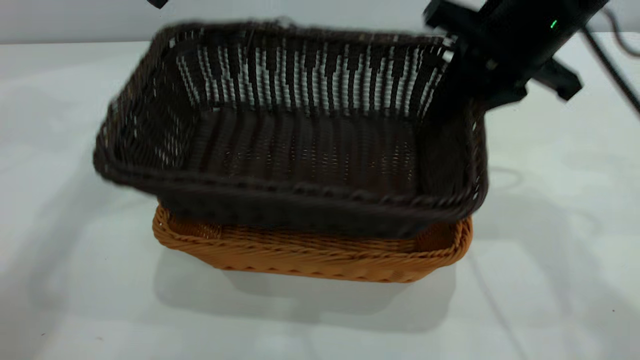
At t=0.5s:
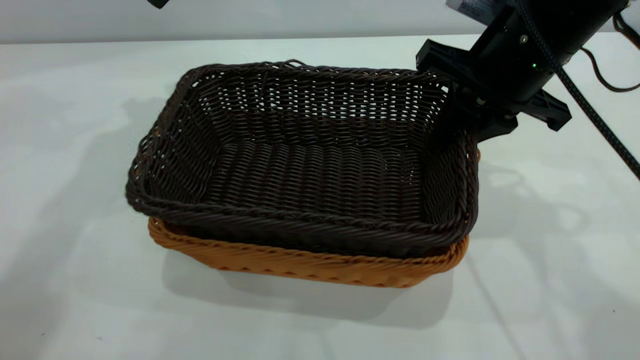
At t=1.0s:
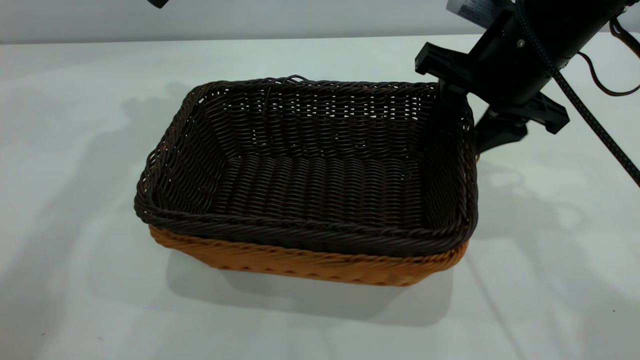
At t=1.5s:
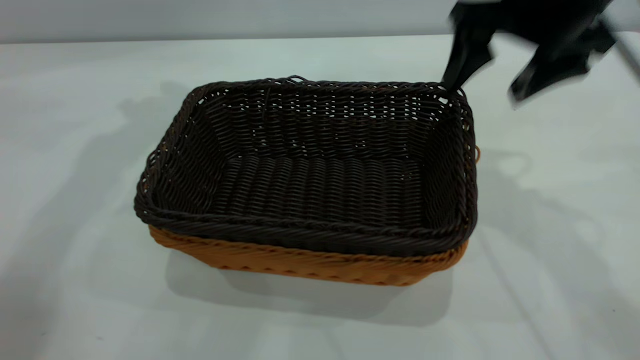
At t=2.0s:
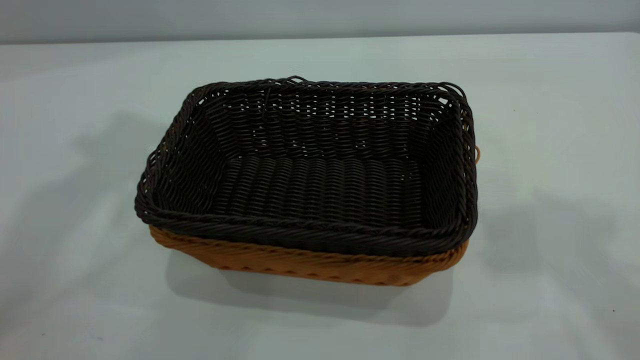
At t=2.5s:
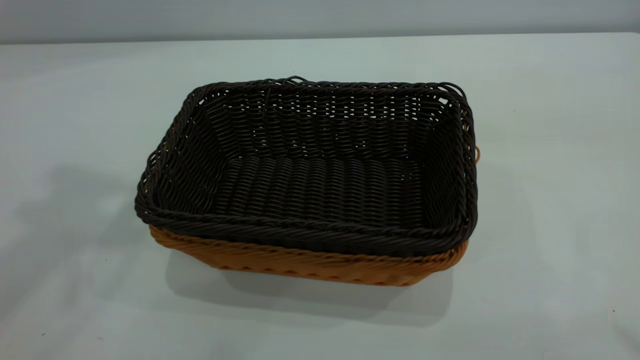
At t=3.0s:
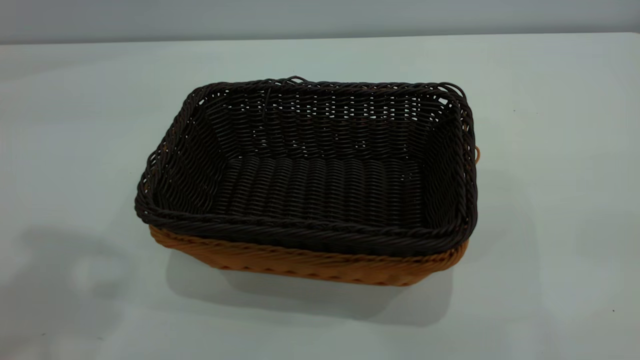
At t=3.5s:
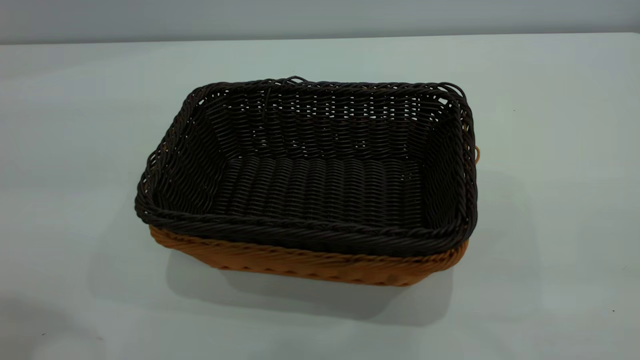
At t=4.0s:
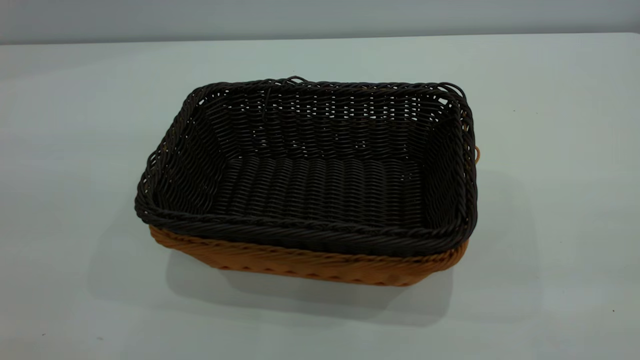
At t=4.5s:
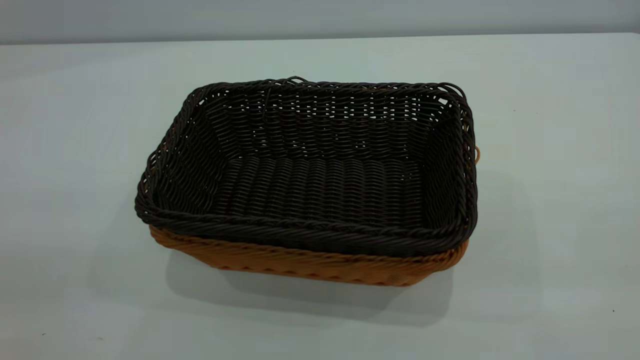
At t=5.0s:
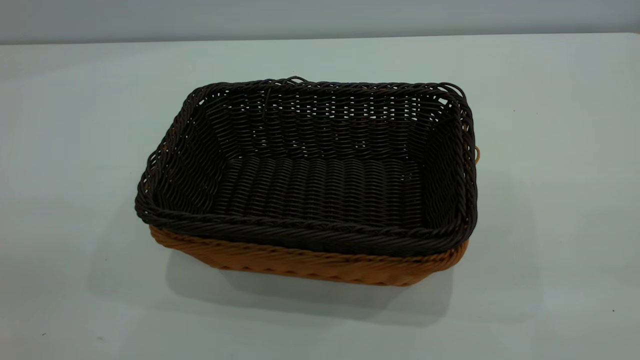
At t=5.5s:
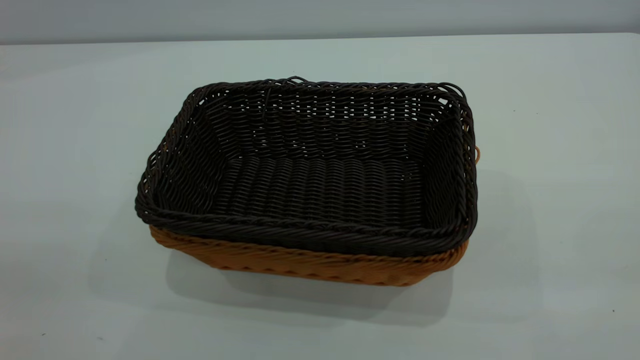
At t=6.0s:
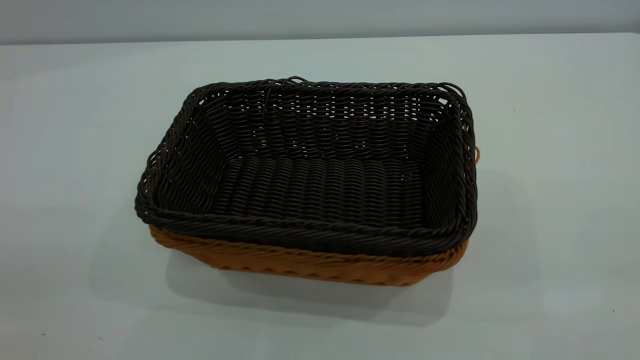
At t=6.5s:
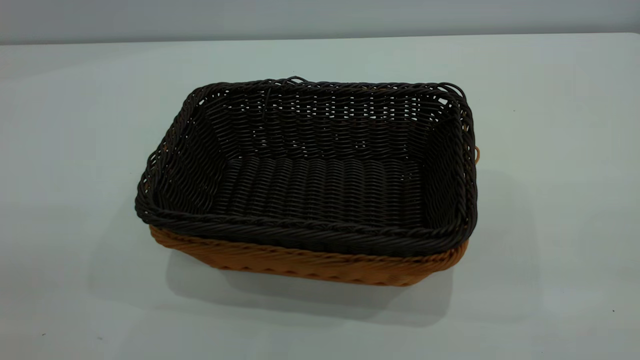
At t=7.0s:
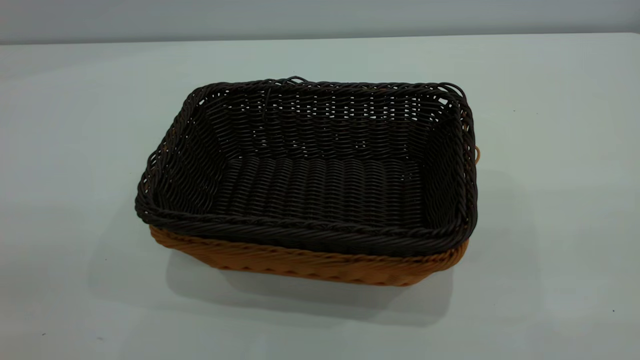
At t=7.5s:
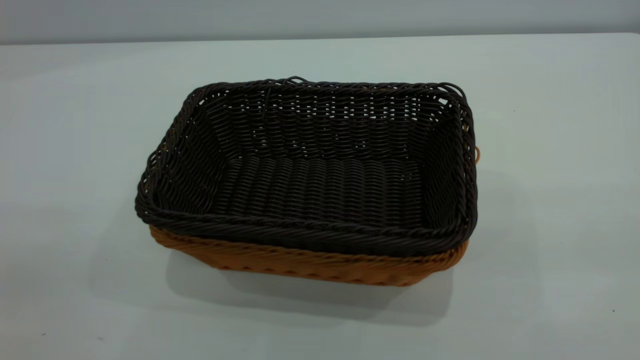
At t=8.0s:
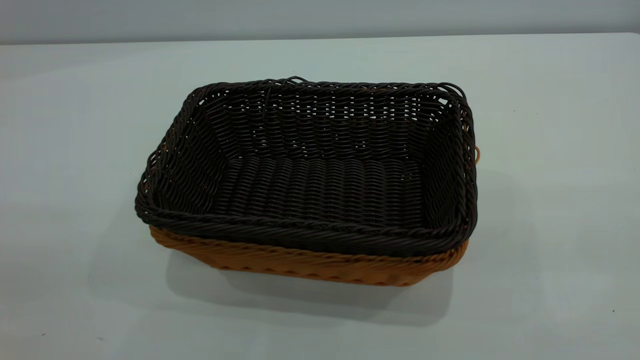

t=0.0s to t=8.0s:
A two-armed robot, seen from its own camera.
Task of the whole recording: the left gripper grasp the brown basket and place it in the center of the table, the right gripper grasp the black basket and place it inside the brown one.
Step, t=0.0s to t=1.5s: Place the dark basket on top of the light basket.
t=0.0s to t=2.0s: The two grippers go approximately 25 cm upward and backward. The right gripper opens its fingers.

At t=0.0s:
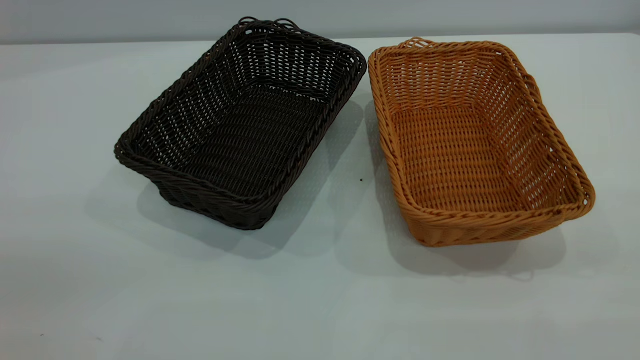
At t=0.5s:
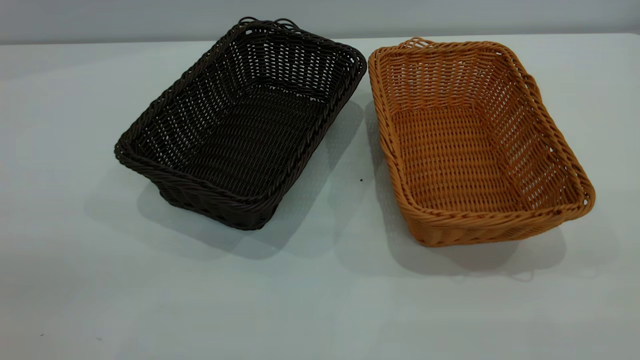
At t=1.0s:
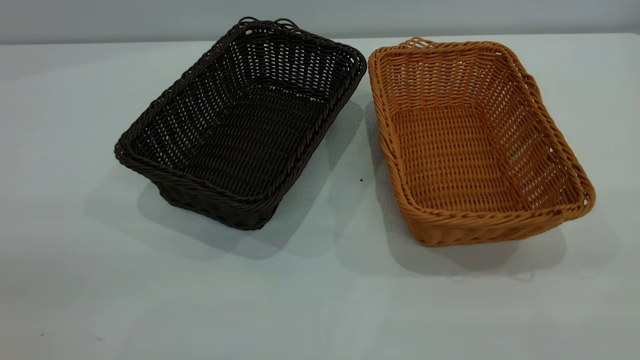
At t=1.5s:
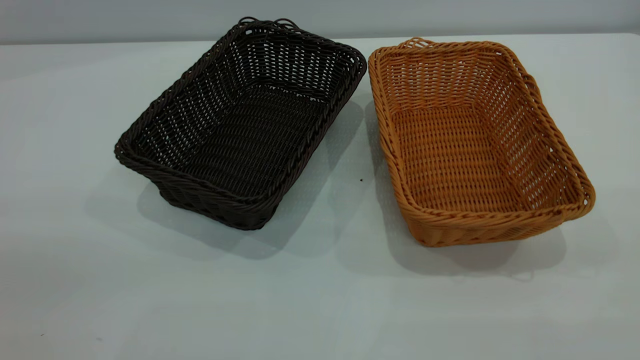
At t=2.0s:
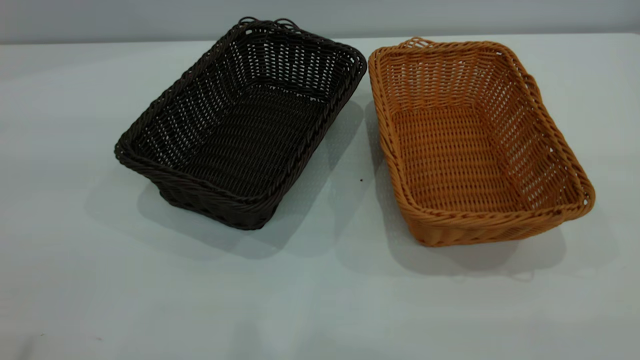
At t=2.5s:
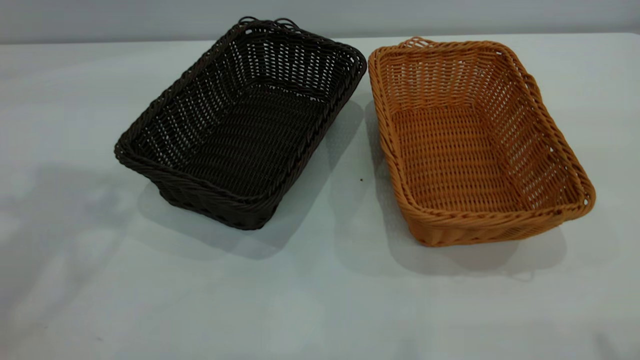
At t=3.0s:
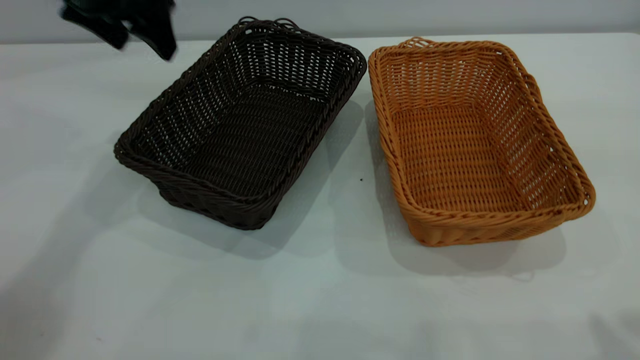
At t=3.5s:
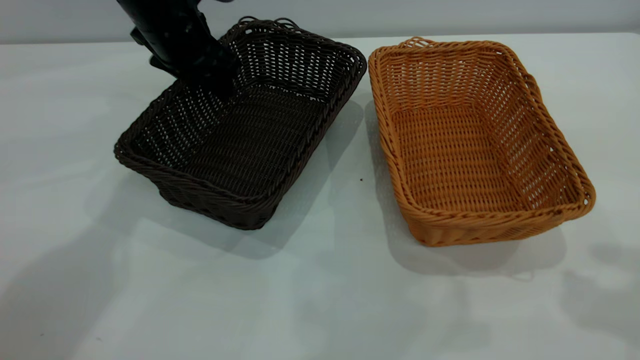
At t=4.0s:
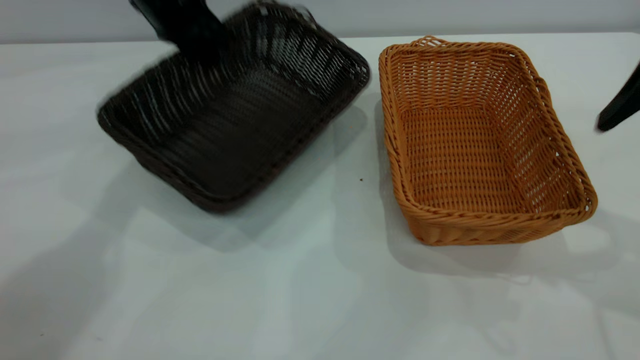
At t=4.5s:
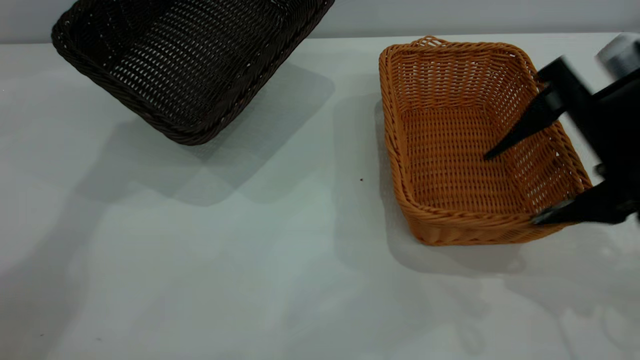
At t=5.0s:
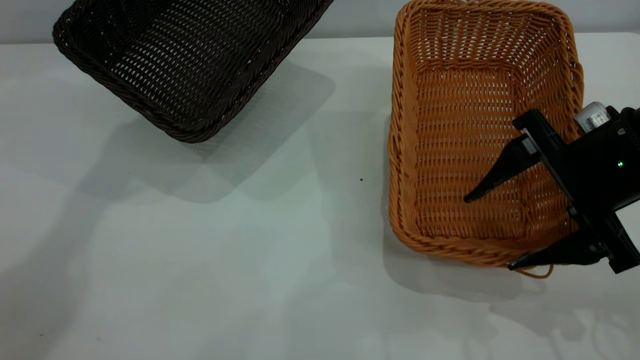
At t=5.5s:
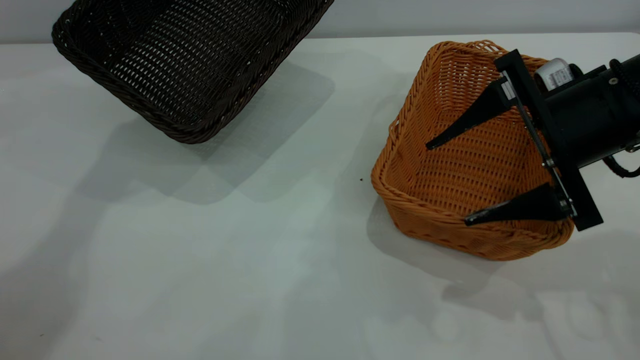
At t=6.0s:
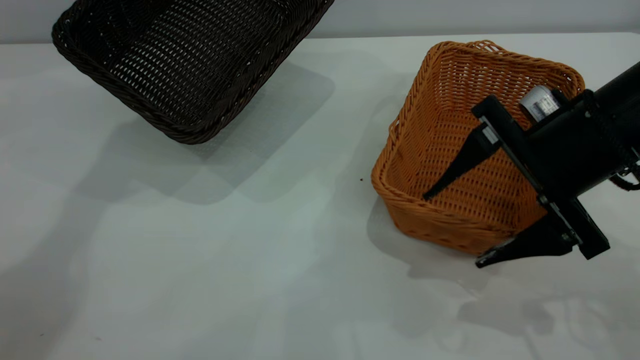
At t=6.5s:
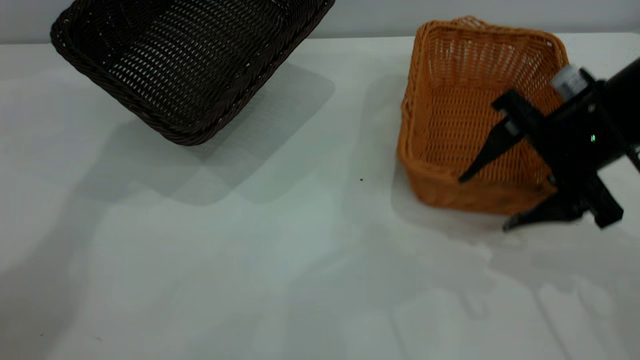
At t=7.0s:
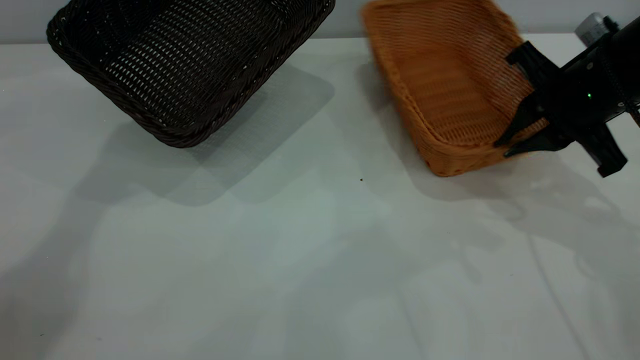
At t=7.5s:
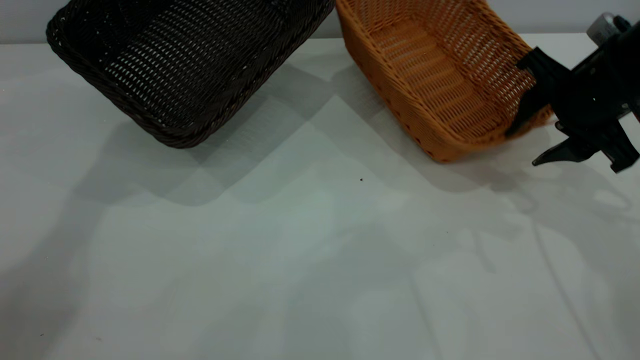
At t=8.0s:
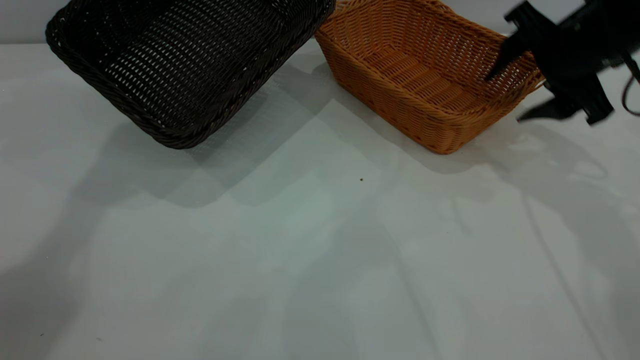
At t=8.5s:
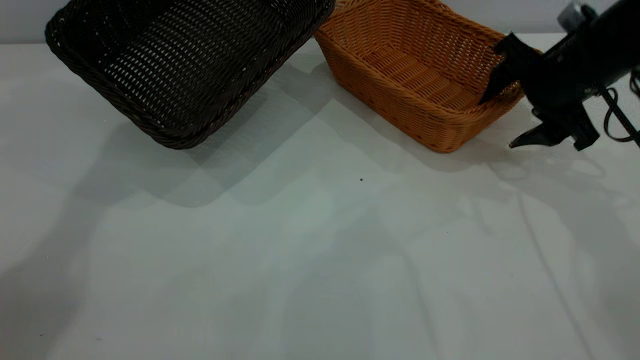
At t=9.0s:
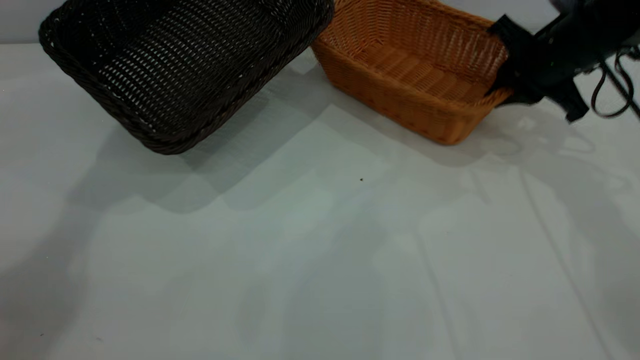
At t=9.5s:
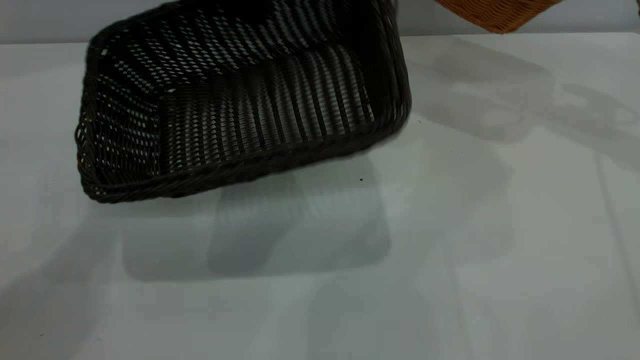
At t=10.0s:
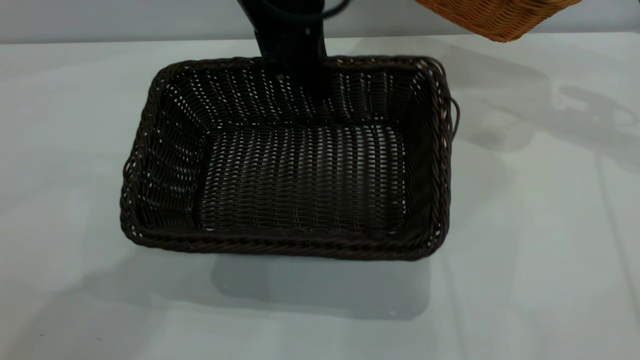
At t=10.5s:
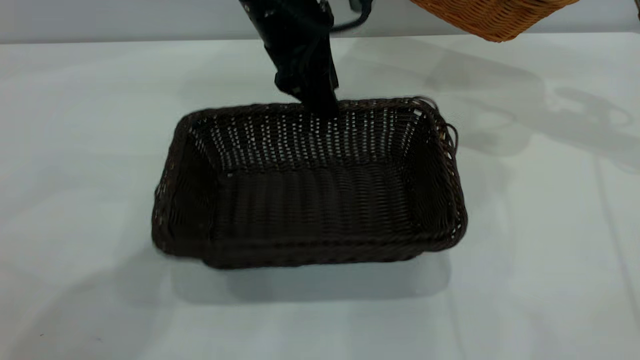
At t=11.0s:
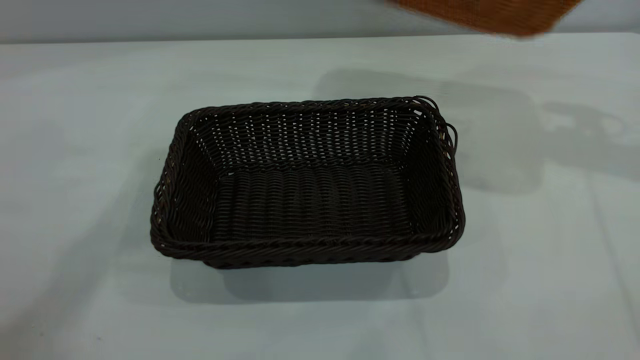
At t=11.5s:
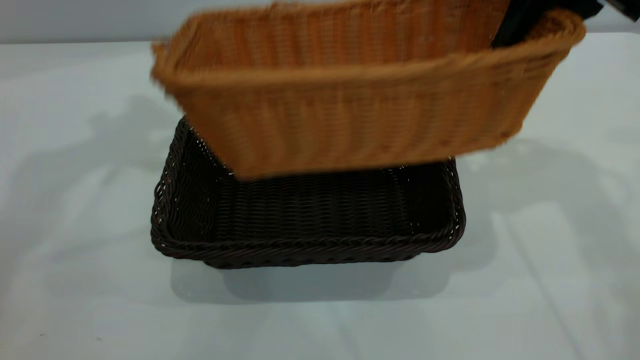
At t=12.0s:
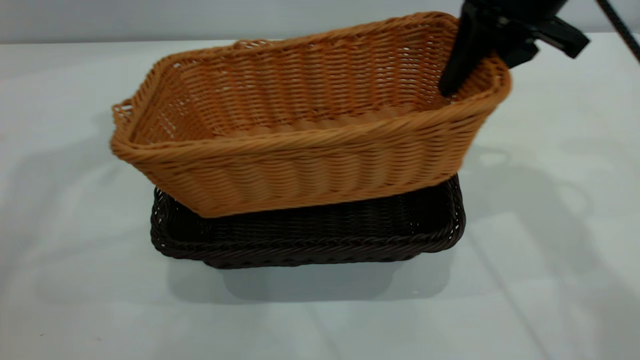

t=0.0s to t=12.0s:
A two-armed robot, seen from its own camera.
Task of the whole recording: the left gripper grasp the black basket and place it in the center of the table, the right gripper grasp the brown basket and place it inside the black one.
Step, t=0.0s to t=9.0s: Pick up the light basket with the right gripper.
Step, t=9.5s to t=10.5s: Move the dark basket to the center of view.
t=2.0s to t=4.0s: The left gripper goes some 40 cm forward and downward, and closes, while the right gripper travels forward and downward by roughly 30 cm.
t=4.0s to t=6.0s: The left gripper moves upward, roughly 5 cm; the right gripper is displaced downward and to the left by approximately 10 cm.
t=6.0s to t=8.0s: The right gripper shifts roughly 10 cm forward, and closes, then opens again.
t=8.0s to t=10.0s: The left gripper moves to the right and backward, roughly 20 cm. The right gripper travels to the right, upward and forward by about 10 cm, and closes up.
t=10.0s to t=12.0s: The right gripper travels to the left and backward by roughly 20 cm; the left gripper shifts about 30 cm to the left and upward, and opens its fingers.
